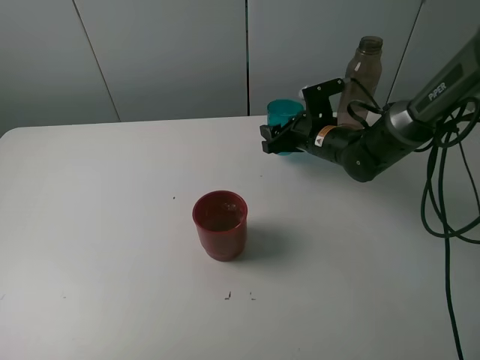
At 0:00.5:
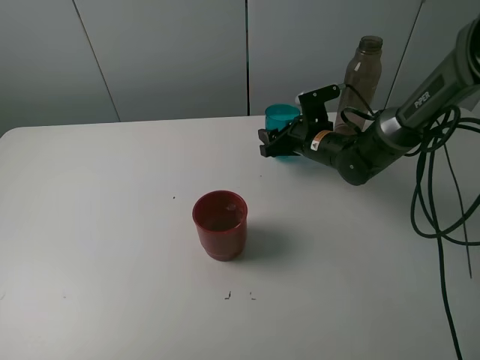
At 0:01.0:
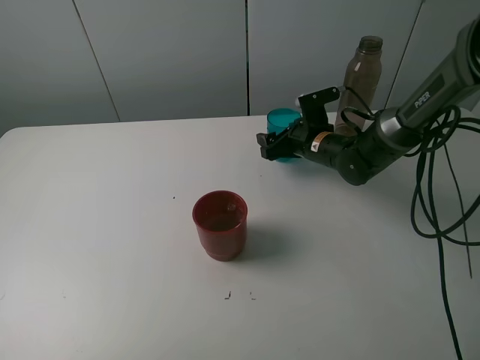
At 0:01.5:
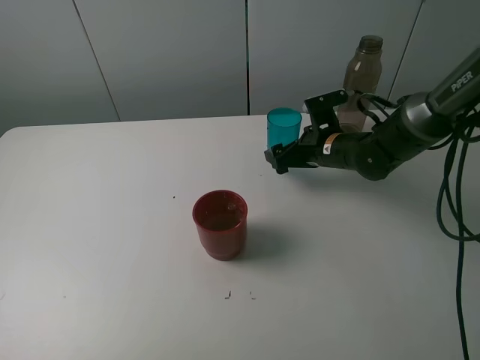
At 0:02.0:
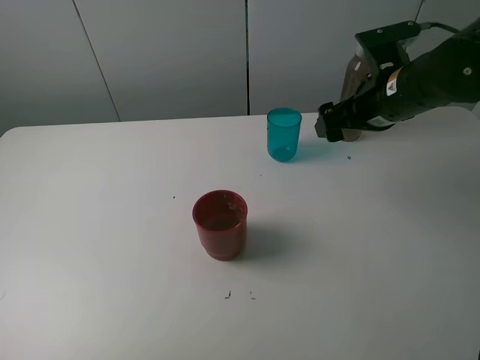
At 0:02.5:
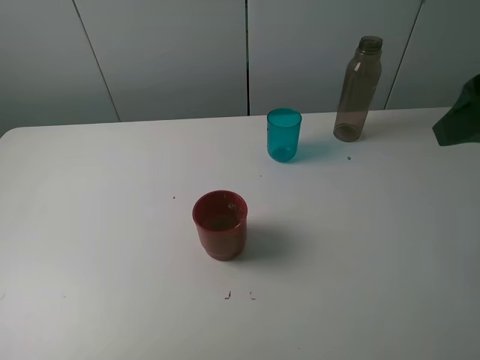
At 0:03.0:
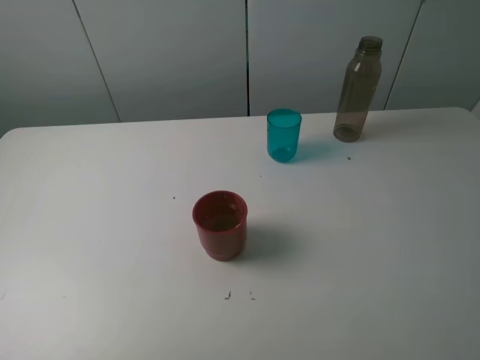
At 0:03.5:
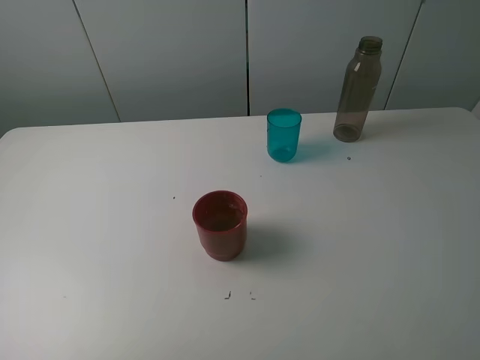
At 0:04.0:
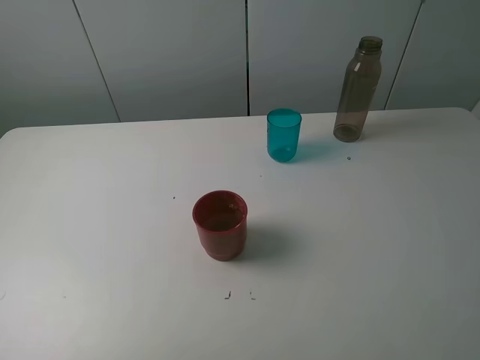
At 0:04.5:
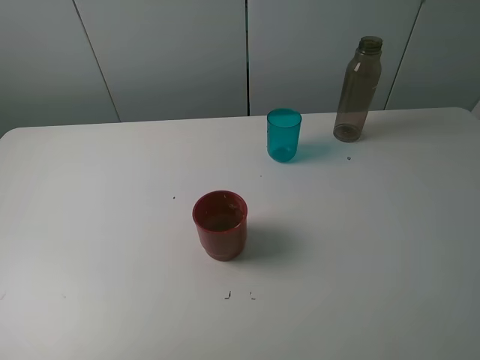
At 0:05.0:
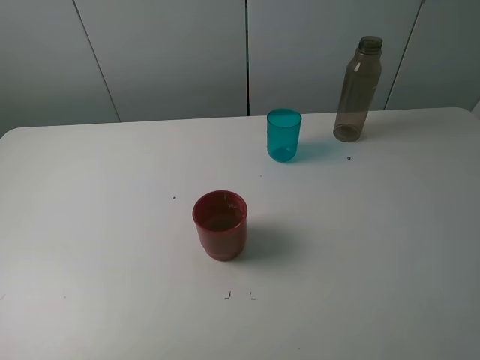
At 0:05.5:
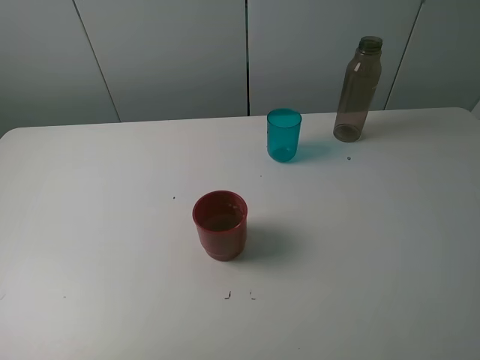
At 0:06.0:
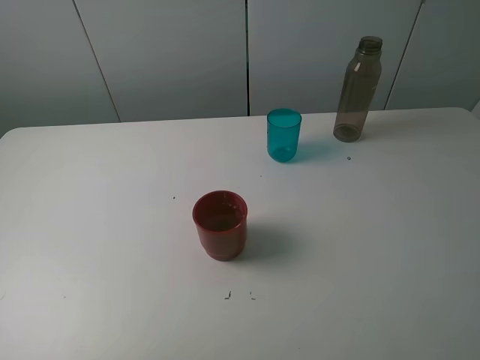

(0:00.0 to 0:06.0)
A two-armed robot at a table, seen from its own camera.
Task of the whole recording: pick up the bottle and pour water into the cup, then pick up the cup containing water and pour it into another cup.
0:00.0 - 0:02.0: The right gripper moves upward and backward, about 20 cm, and opens.
0:02.0 - 0:04.0: The right gripper goes roughly 30 cm backward.
